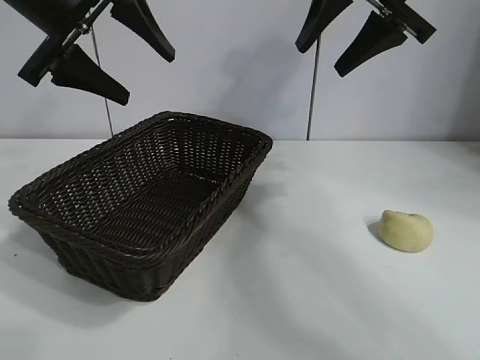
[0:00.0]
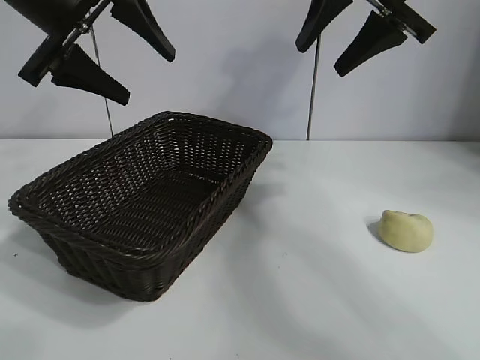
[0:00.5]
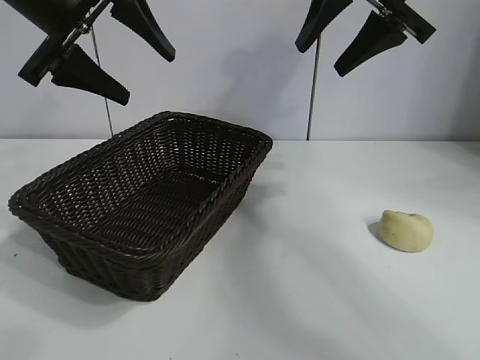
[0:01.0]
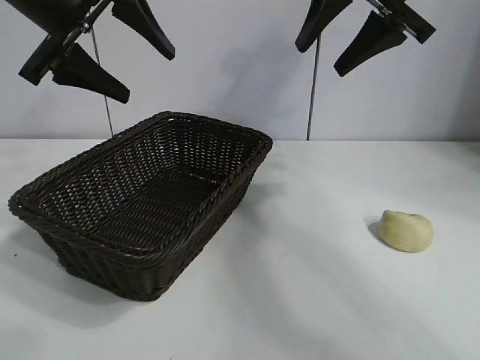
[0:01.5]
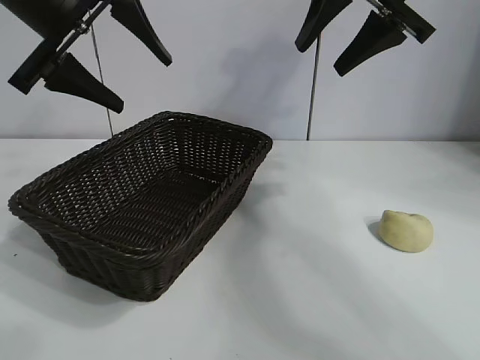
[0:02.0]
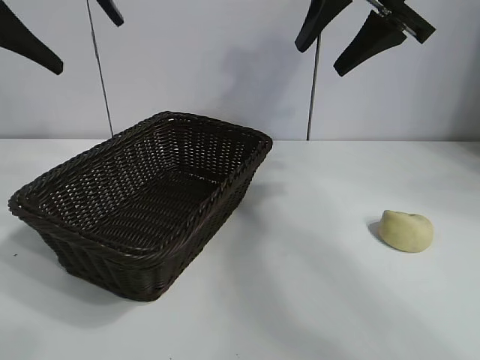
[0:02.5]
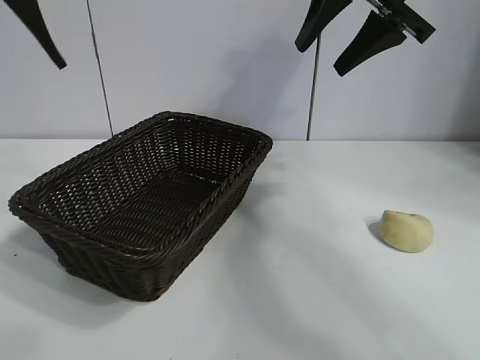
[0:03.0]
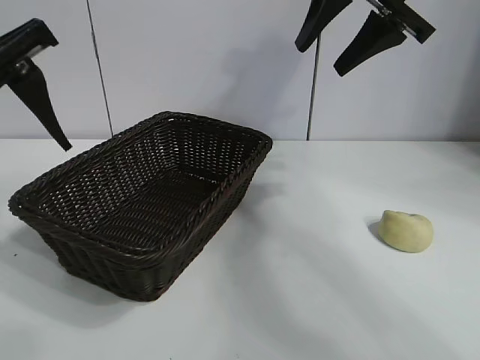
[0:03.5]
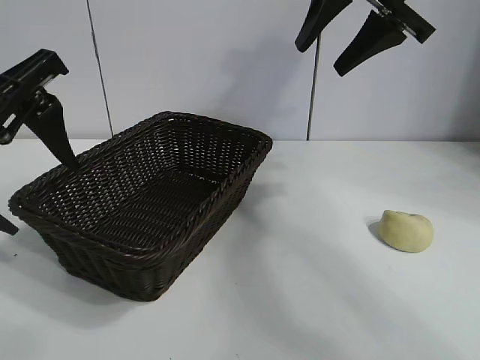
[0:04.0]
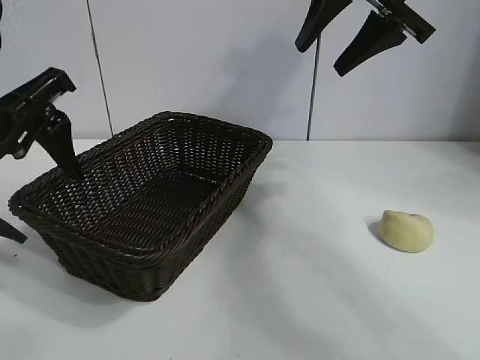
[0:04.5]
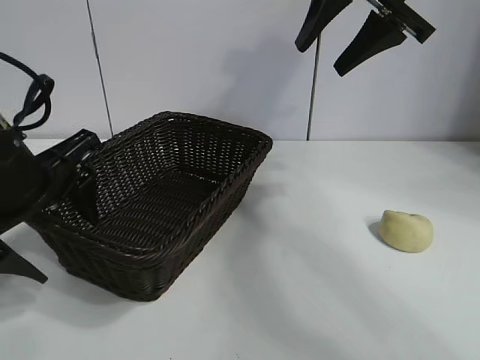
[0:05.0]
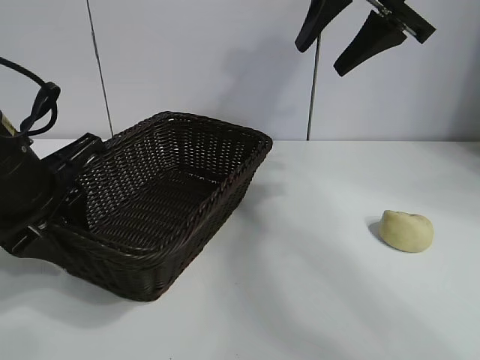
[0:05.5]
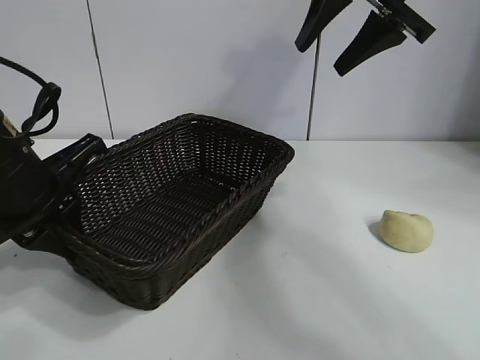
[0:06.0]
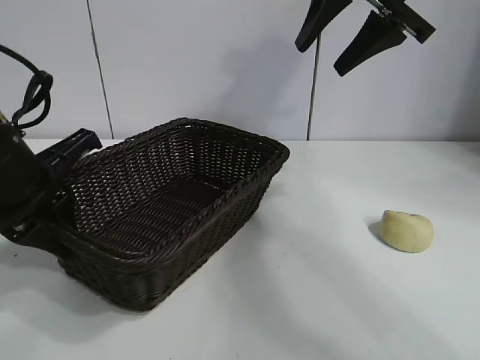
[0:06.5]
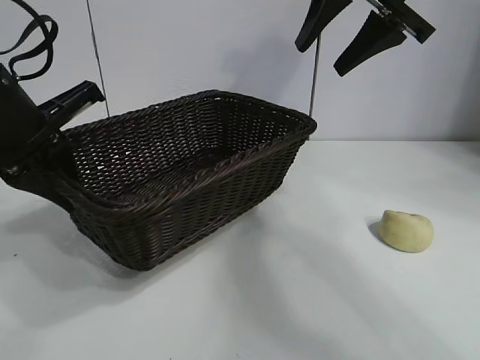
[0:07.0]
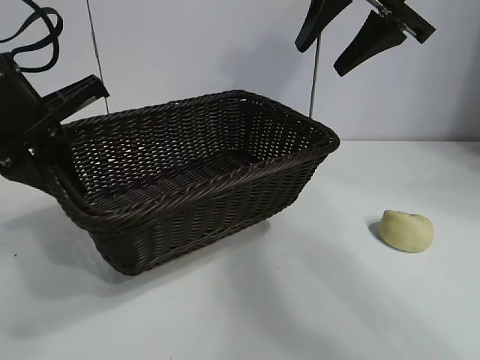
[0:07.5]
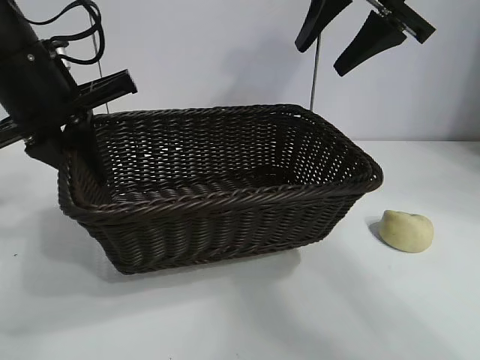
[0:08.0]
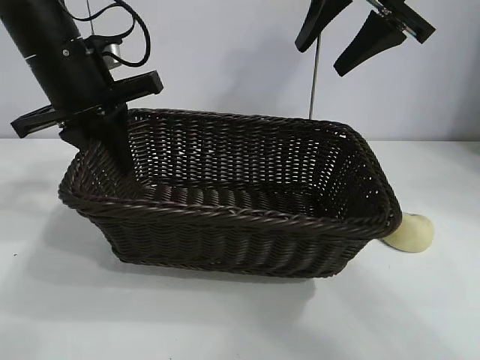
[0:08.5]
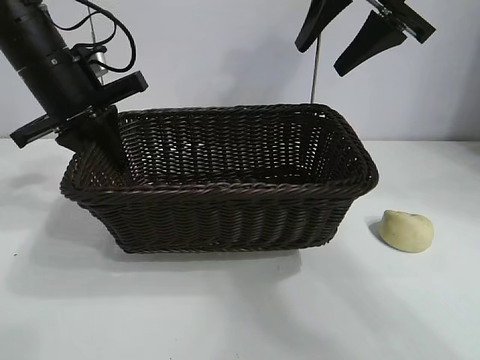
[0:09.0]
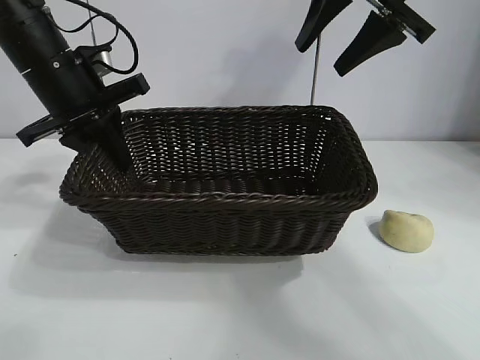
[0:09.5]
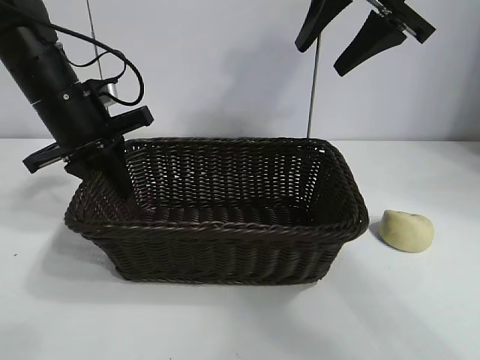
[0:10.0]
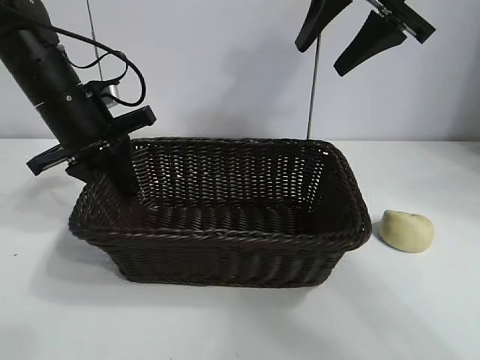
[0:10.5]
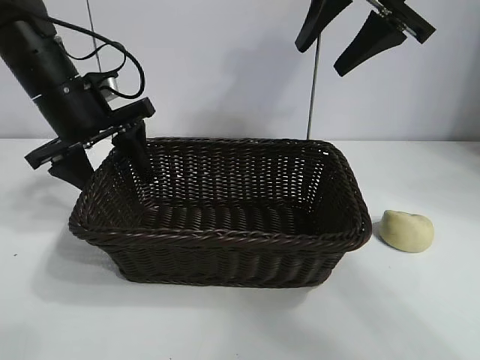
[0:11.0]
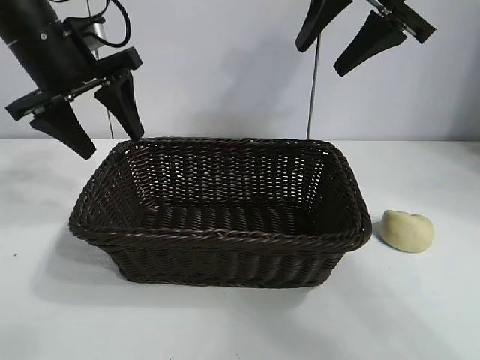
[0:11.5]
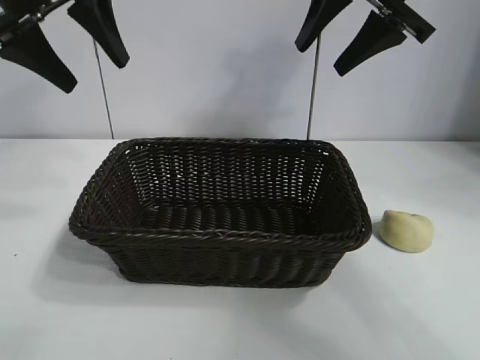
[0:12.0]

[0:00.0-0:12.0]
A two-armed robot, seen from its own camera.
Task of the whole recording: pick up the egg yolk pastry and put it into the basket.
Step, 0:01.5 to 0:05.5: Grasp the basket with left gripper.
Step, 0:06.0 to 0:10.5: Place the basket in the center of view with left gripper.

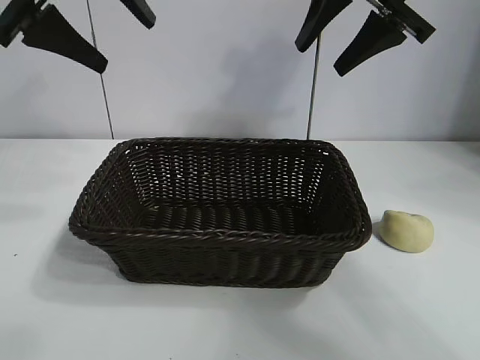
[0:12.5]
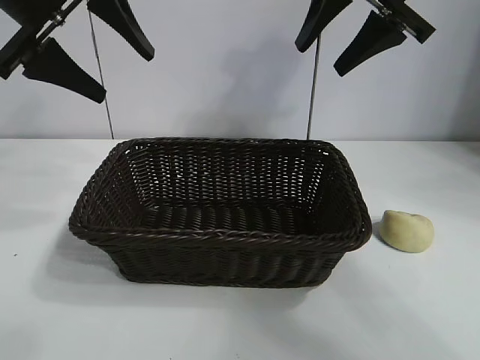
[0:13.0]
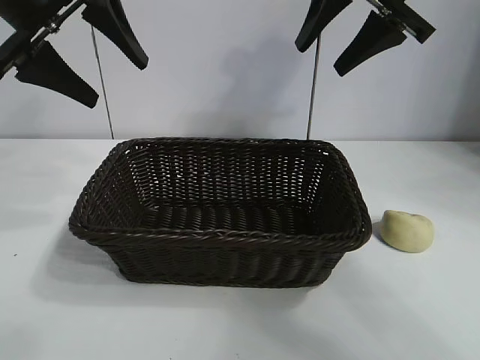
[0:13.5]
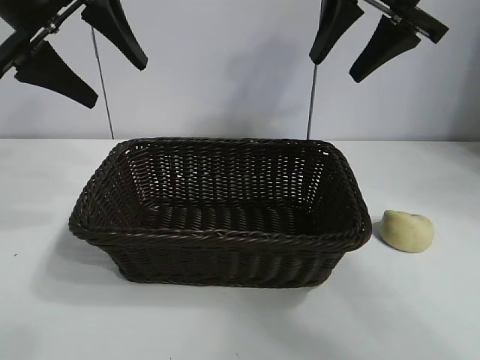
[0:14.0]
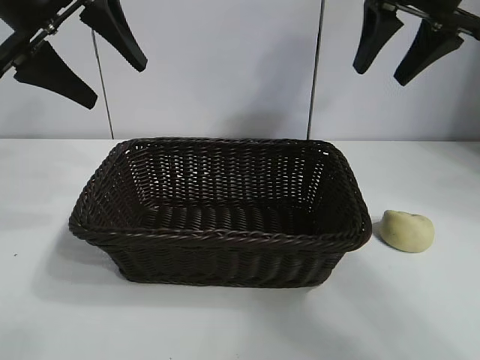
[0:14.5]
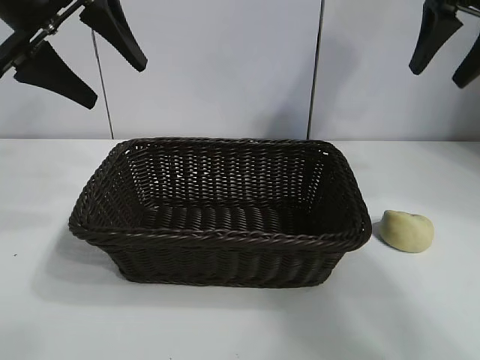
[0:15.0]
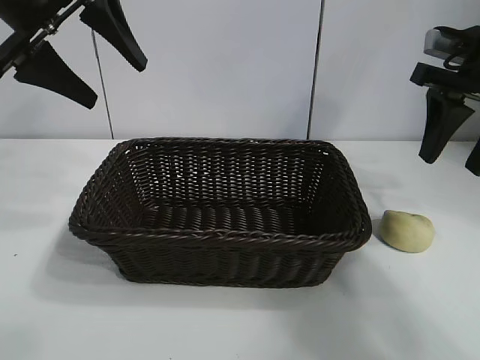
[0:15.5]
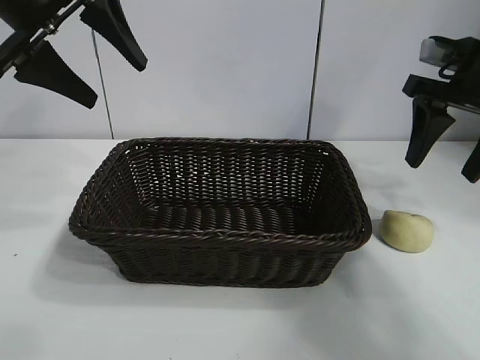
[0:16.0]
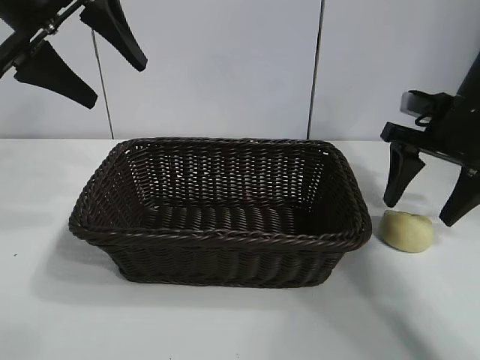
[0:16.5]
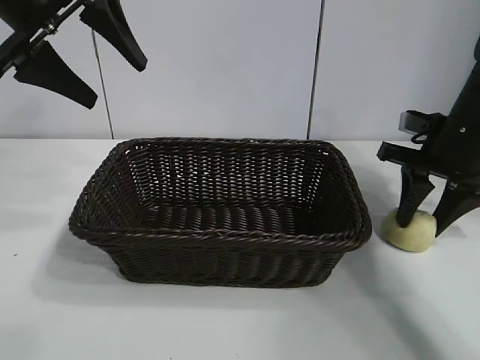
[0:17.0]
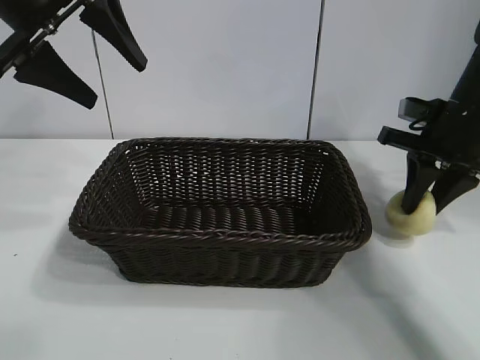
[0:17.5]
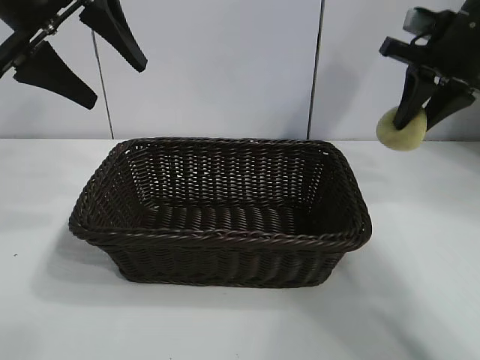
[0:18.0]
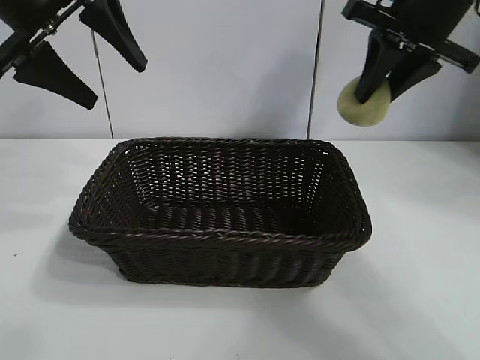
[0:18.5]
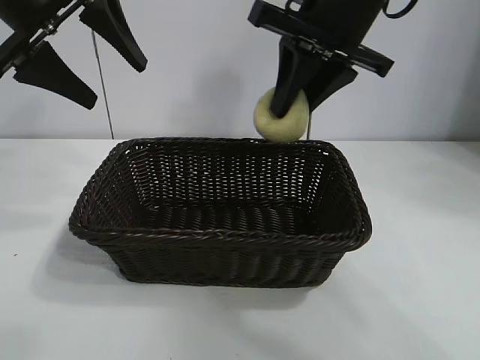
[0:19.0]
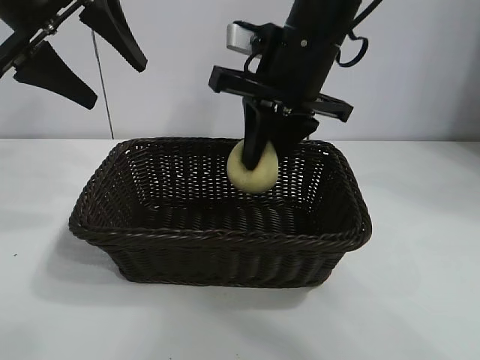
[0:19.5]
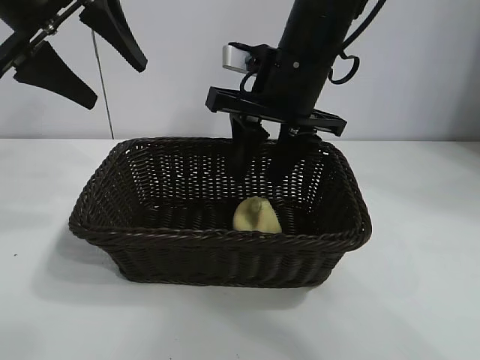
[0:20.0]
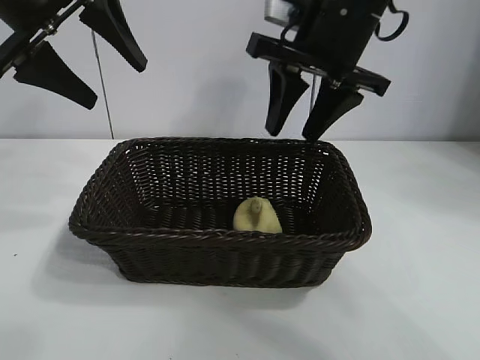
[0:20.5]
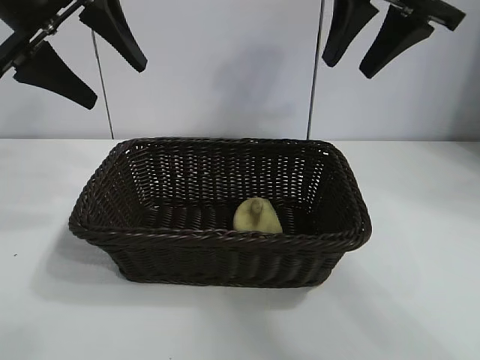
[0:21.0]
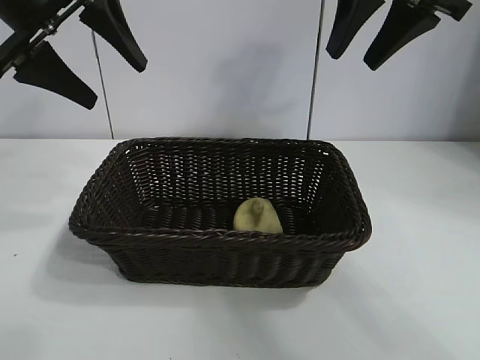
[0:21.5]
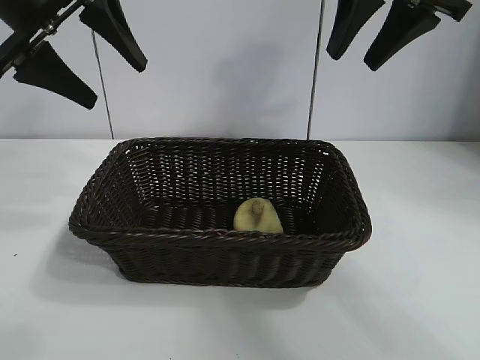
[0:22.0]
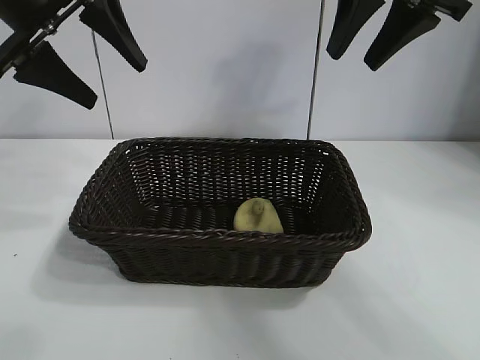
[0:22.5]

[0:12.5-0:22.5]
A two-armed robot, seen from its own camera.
Task of the whole recording: pick up the egg yolk pastry and put it into the basket.
Step, 0:12.5 to 0:17.0: Grasp egg yolk pastry with right gripper.
Step, 0:17.5 to 0:20.0: Place the egg yolk pastry in the basket with right gripper.
